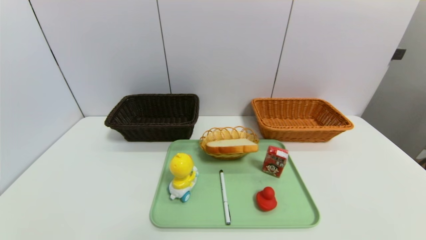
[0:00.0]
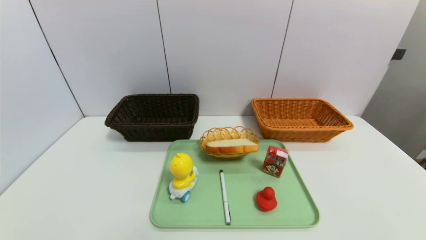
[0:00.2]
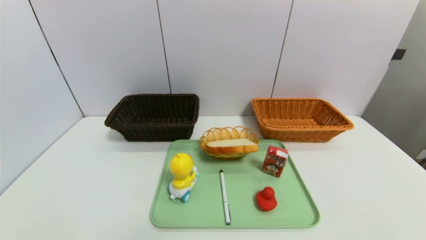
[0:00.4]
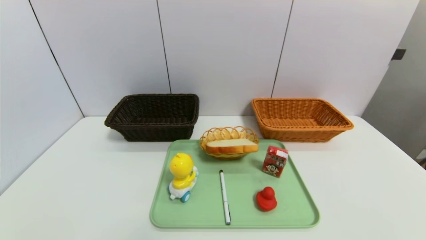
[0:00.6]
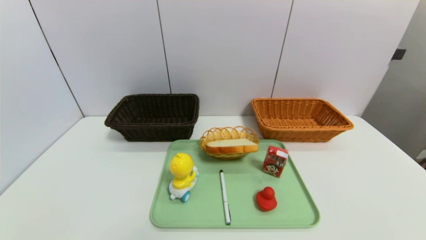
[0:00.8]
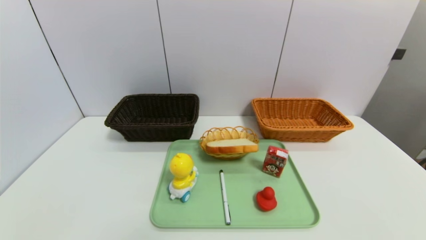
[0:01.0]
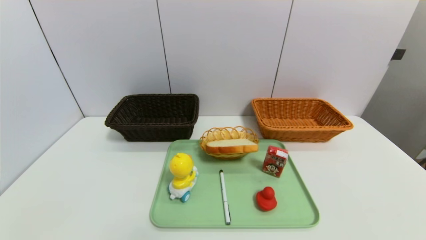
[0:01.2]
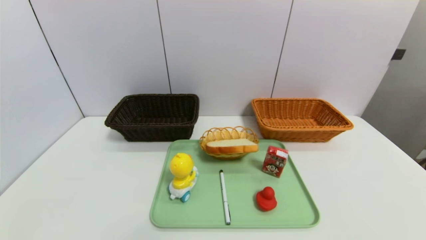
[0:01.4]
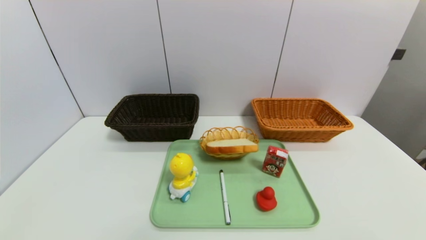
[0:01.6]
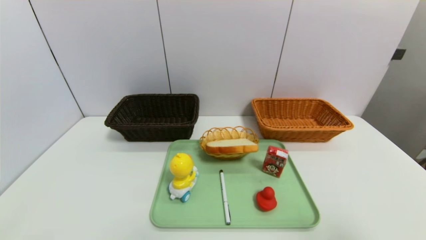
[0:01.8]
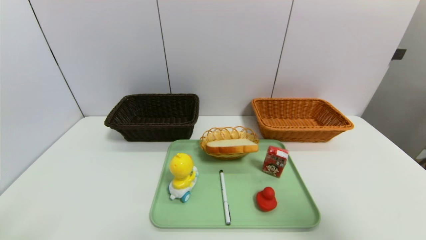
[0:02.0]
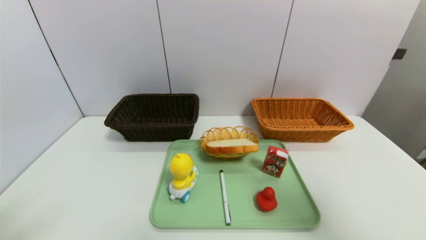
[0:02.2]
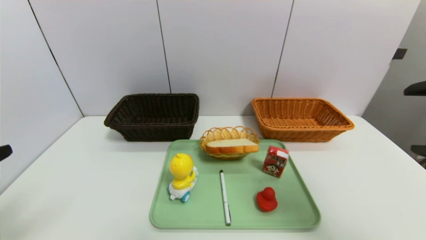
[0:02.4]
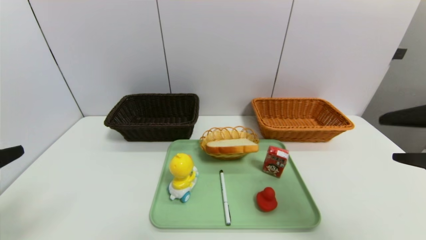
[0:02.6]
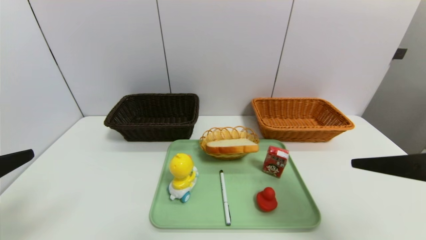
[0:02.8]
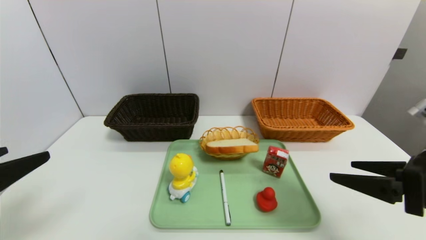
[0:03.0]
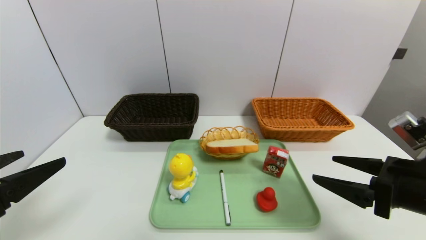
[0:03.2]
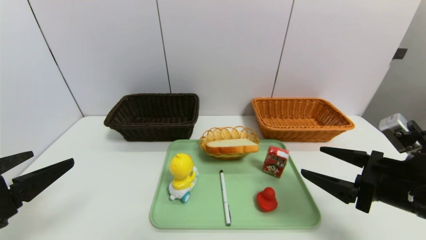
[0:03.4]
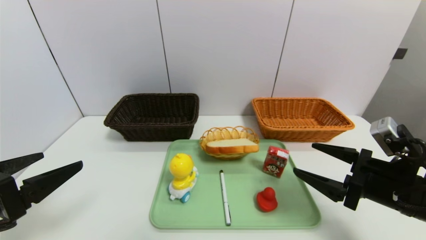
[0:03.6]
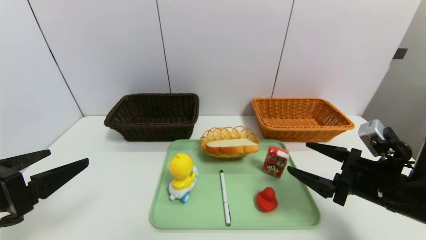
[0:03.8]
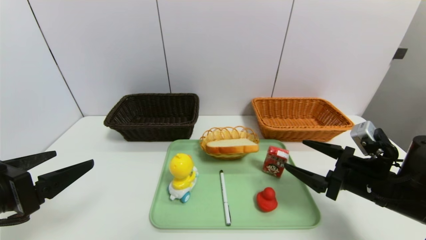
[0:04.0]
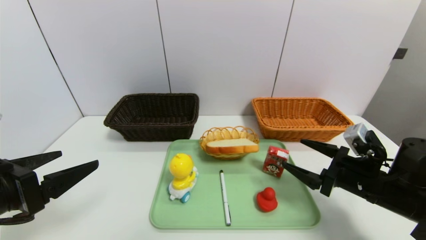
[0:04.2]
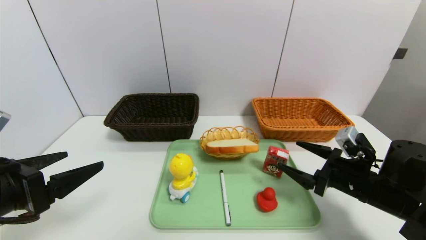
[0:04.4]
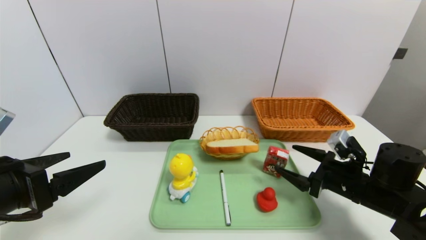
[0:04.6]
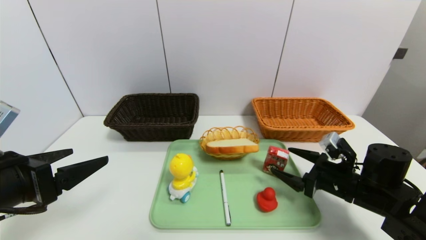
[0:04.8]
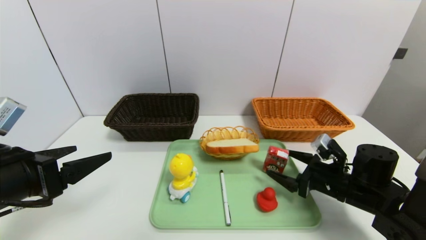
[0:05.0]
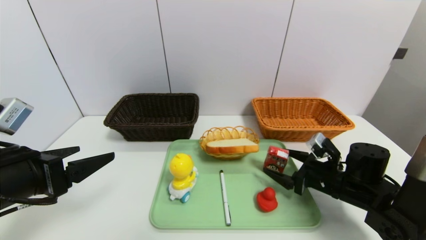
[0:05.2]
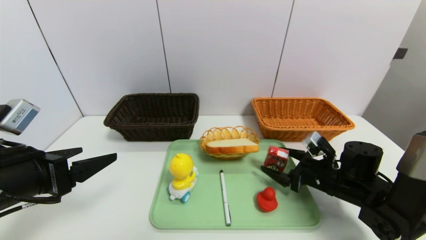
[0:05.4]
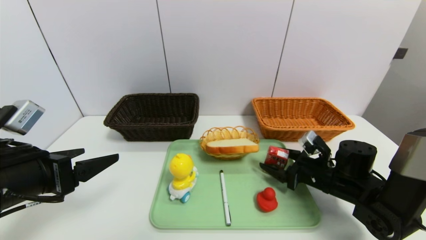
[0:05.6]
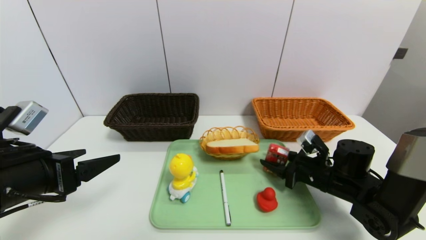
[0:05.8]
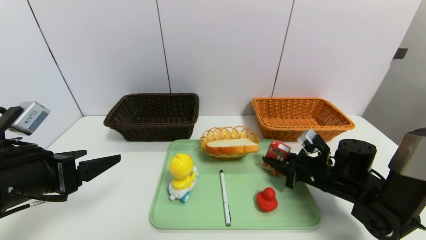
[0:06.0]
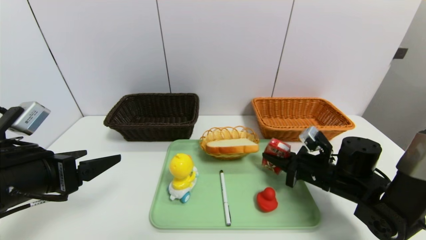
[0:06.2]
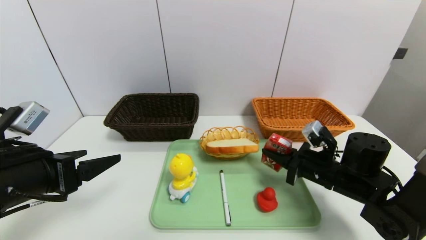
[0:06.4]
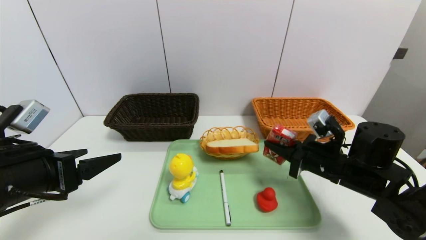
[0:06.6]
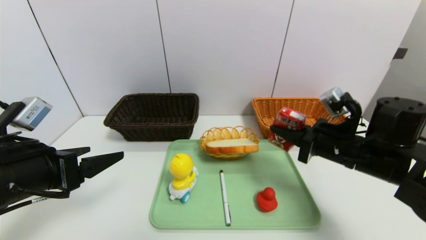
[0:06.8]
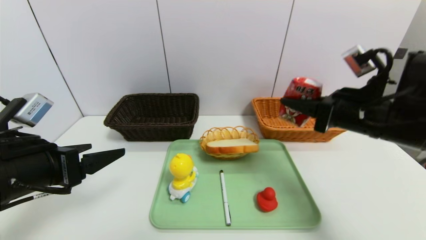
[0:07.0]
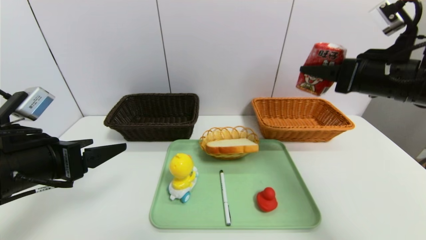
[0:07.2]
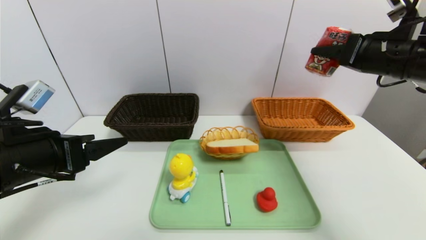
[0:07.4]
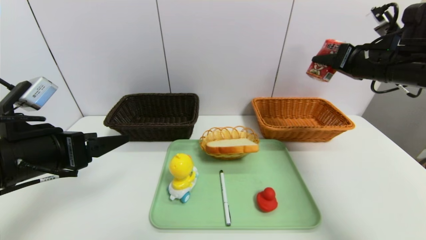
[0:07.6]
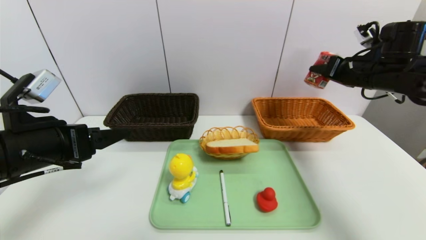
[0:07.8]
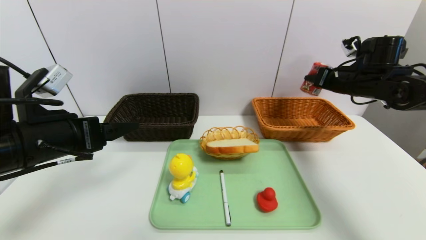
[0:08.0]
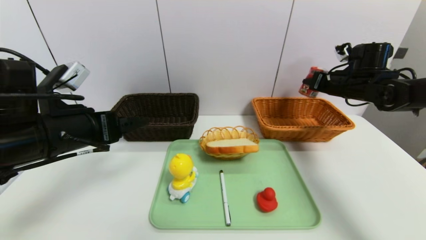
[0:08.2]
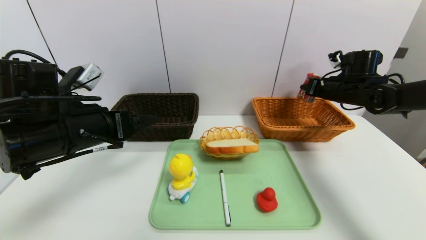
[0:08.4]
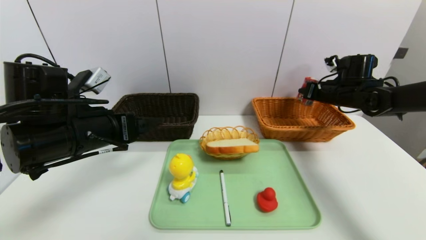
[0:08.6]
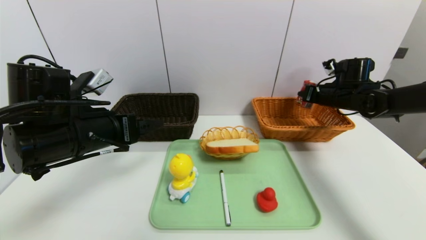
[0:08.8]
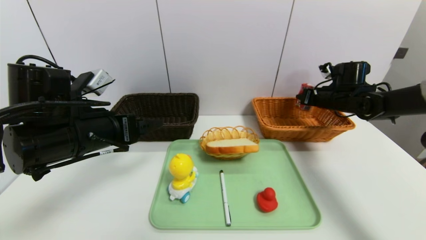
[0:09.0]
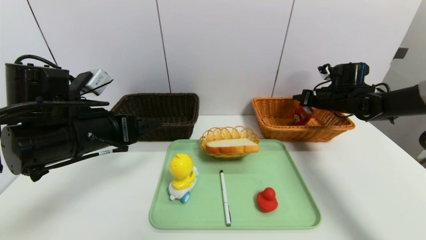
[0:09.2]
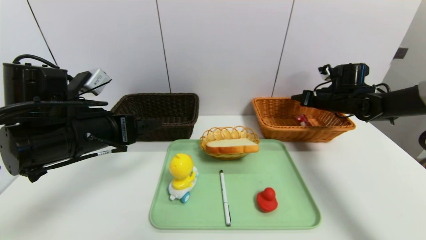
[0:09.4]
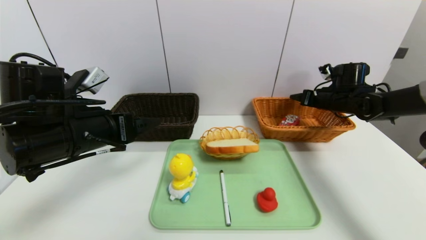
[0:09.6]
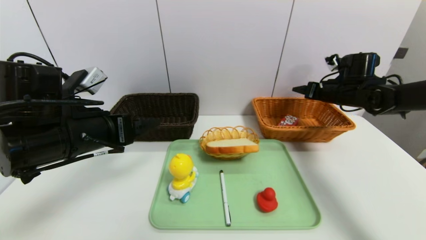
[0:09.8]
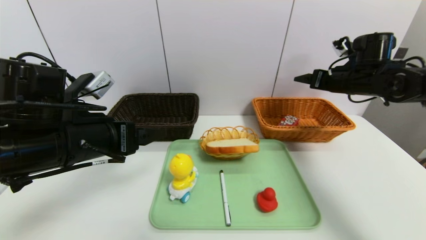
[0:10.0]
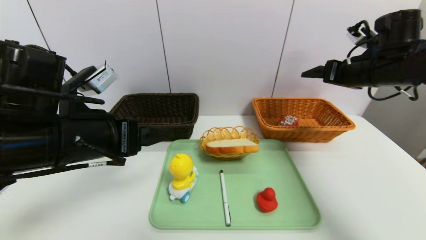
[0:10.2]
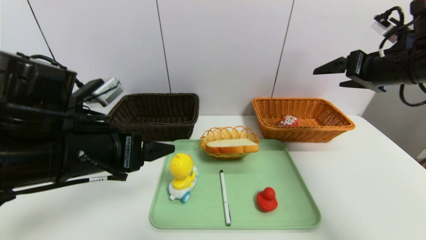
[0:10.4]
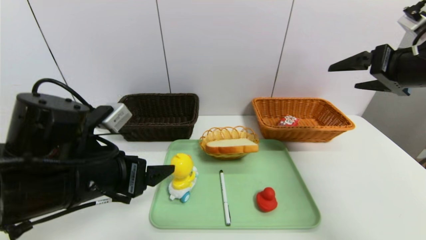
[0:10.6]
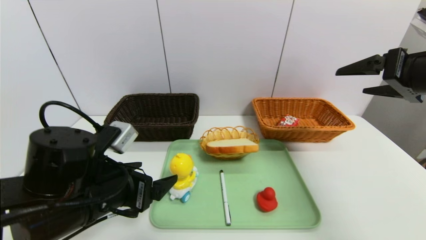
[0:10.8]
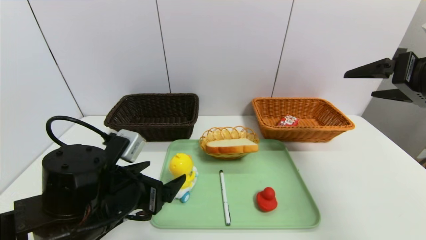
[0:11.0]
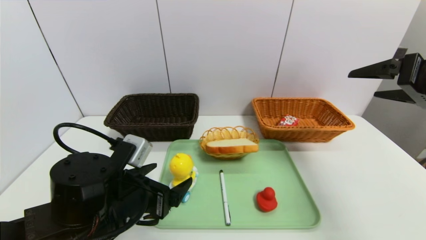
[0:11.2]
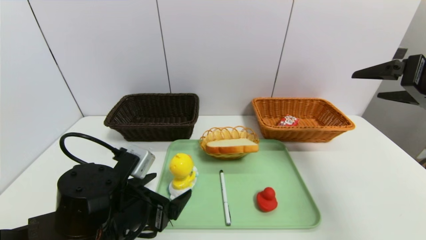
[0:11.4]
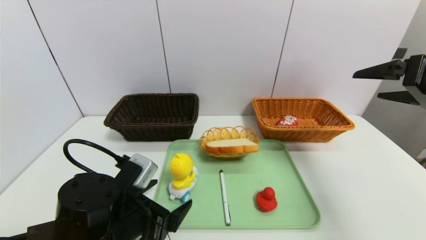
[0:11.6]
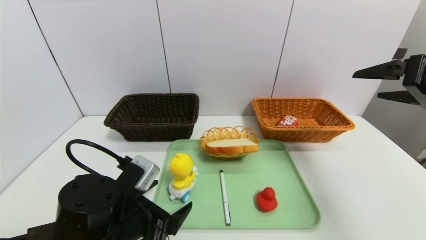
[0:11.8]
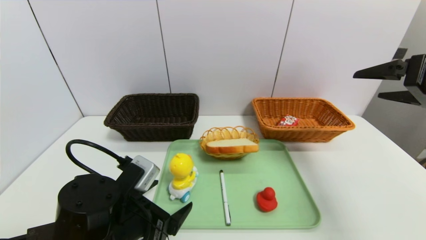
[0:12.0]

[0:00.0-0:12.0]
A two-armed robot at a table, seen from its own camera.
Task of the whole recording: place the food in the right basket with the right gripper, and place the non food items in the left basket with the left gripper.
Step, 0:00.0 to 0:09.6: Grasp the milk and put it in the right basket.
0:01.6 to 0:03.0: The grippers both shift forward by approximately 15 cm.
0:03.0 to 0:04.4: The right gripper moves downward and forward, approximately 15 cm, while the left gripper moves approximately 5 cm.
0:04.4 to 0:06.0: The right gripper moves forward, roughly 5 cm, and closes.
0:06.0 to 0:07.6: The right gripper moves upward, approximately 25 cm.
0:07.6 to 0:09.0: The right gripper moves downward and forward, roughly 15 cm. The left gripper heads forward, covering approximately 5 cm.
0:09.0 to 0:10.4: The left gripper changes place by some 5 cm. Meanwhile the right gripper is displaced backward and upward by approximately 20 cm, and opens up.
0:10.4 to 0:12.0: The right gripper travels backward by some 10 cm. The left gripper shifts about 15 cm downward.

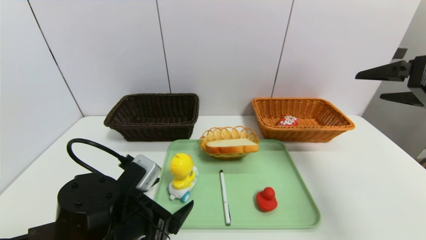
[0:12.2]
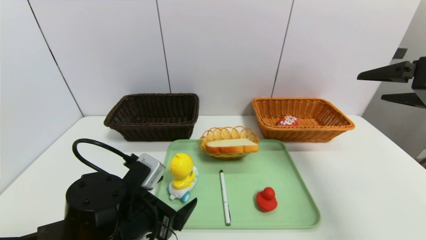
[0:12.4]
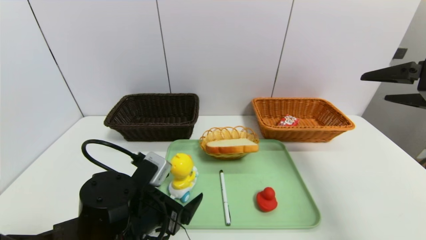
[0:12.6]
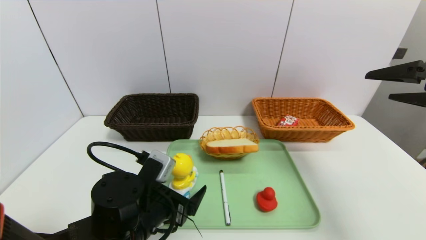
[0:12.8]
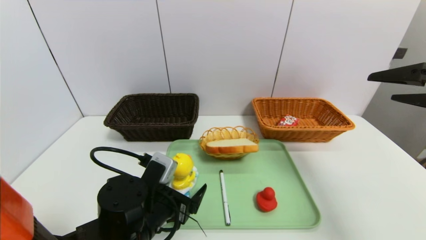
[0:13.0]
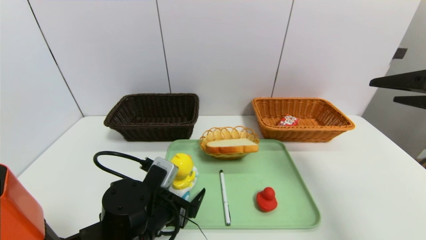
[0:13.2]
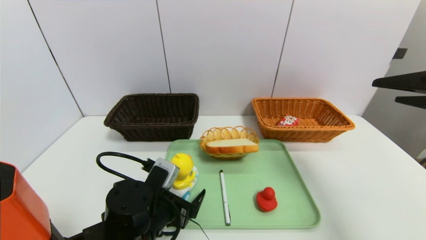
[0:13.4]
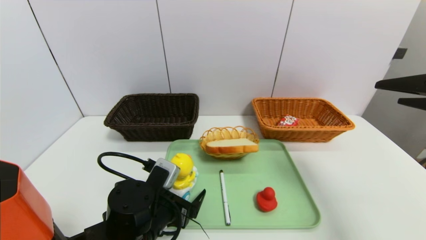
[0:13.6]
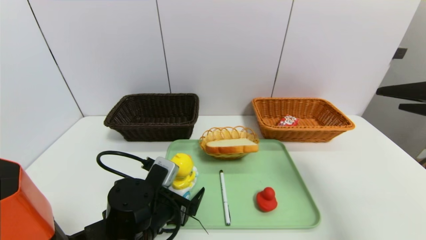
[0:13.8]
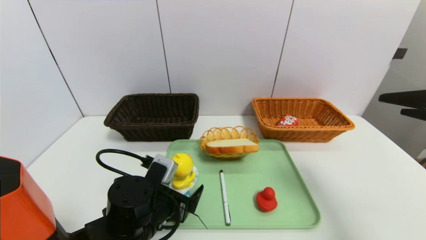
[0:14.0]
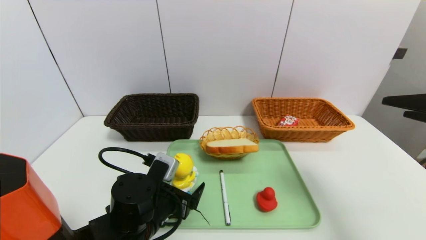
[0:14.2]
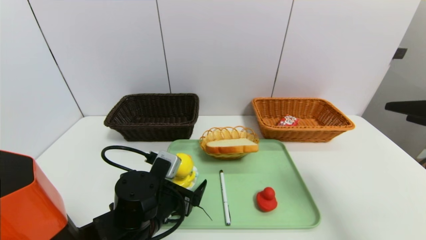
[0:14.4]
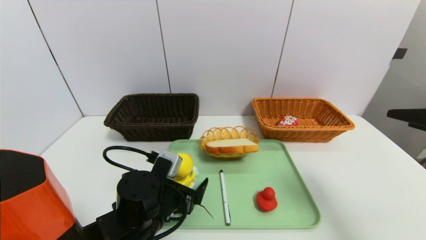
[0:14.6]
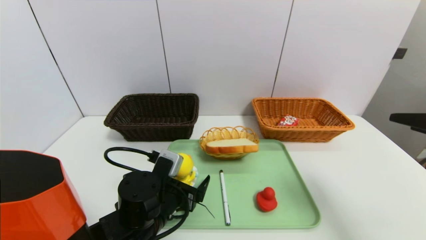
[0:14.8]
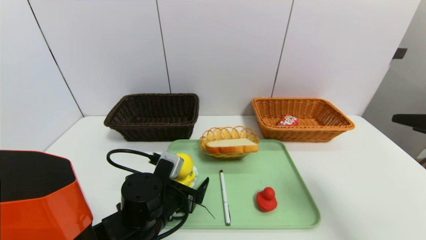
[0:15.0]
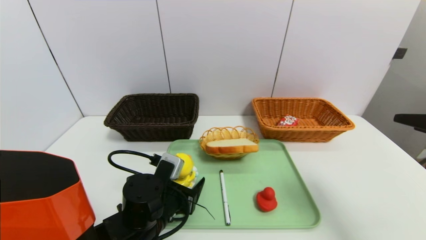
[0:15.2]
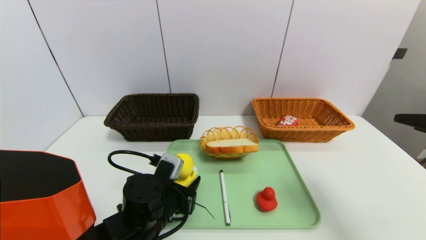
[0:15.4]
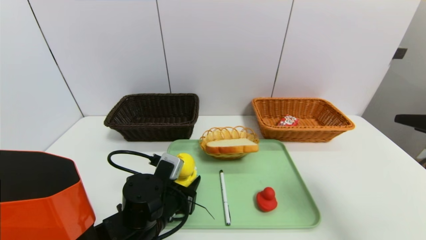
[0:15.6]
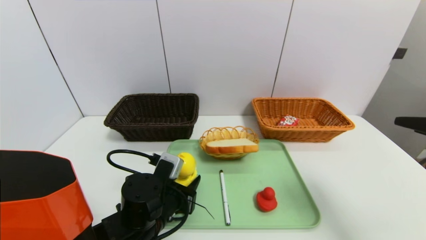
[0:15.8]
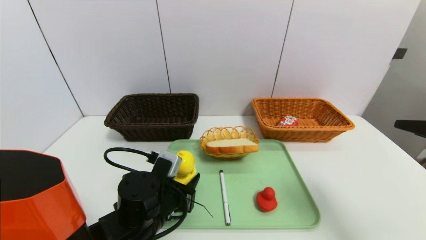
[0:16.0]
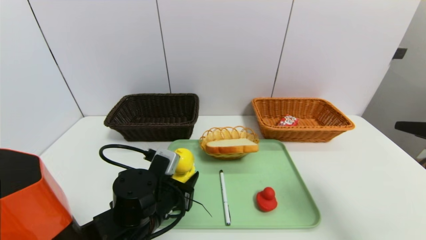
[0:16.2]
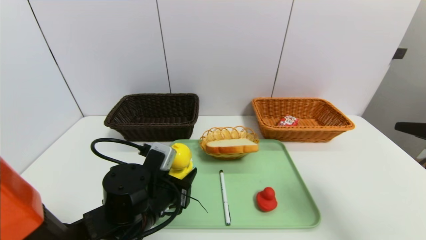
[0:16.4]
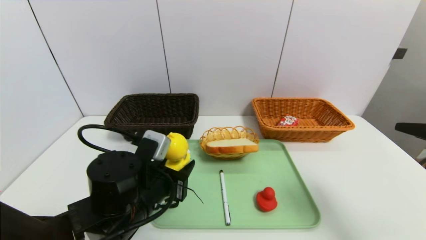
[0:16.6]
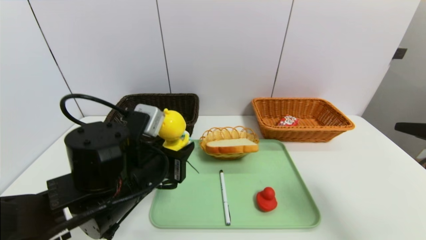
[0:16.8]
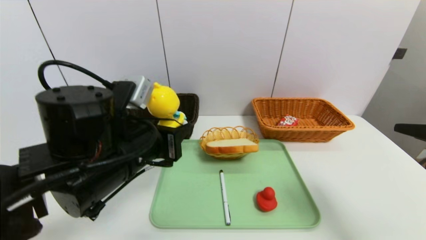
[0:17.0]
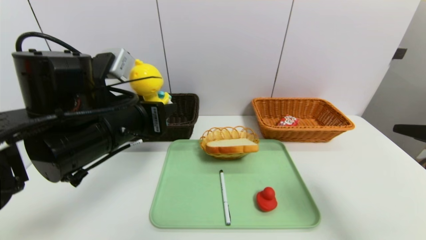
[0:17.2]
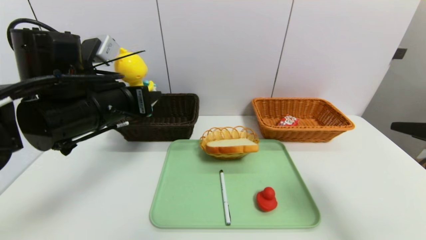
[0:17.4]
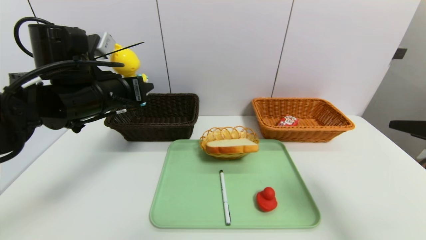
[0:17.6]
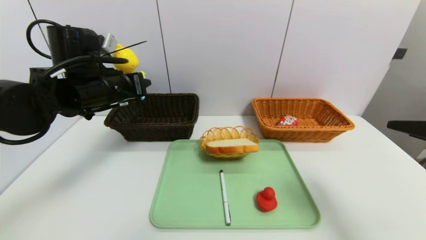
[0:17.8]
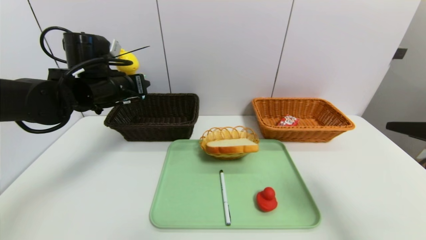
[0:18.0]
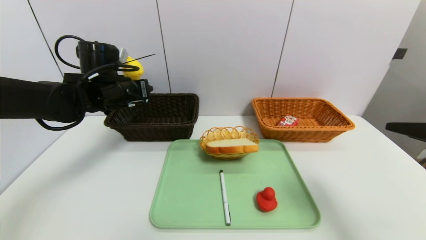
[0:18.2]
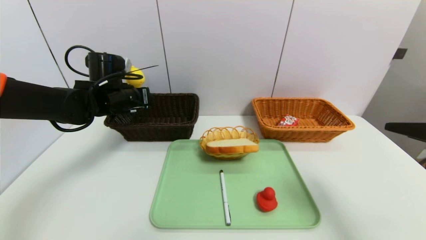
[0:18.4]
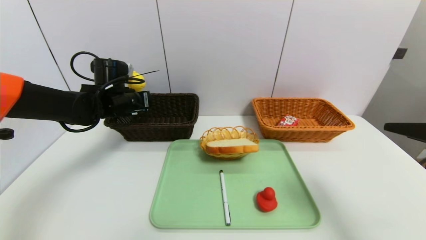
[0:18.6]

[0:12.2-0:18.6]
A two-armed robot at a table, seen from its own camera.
Task of the whole recording: place the food in the right basket with the right gripper, and place the non food items in the left basket with the left gripper.
0:12.2 to 0:13.8: The left gripper moves roughly 5 cm, while the right gripper travels backward by roughly 5 cm.
0:13.8 to 0:15.4: The left gripper closes.
0:15.4 to 0:17.0: The left gripper travels upward by roughly 15 cm.
0:17.0 to 0:18.6: The left gripper shifts approximately 25 cm forward and to the left.
